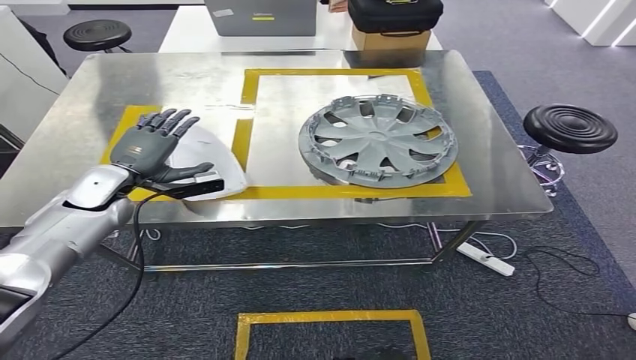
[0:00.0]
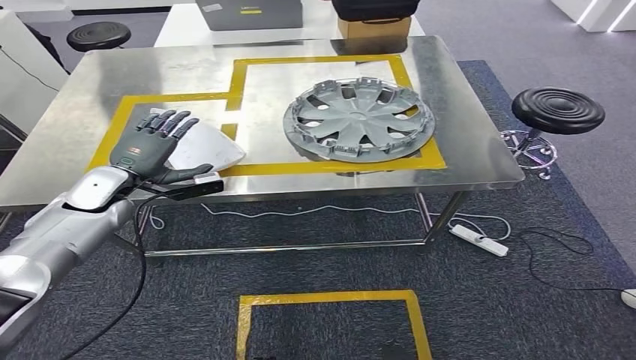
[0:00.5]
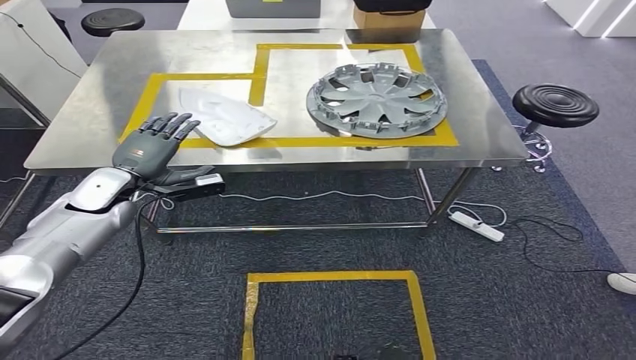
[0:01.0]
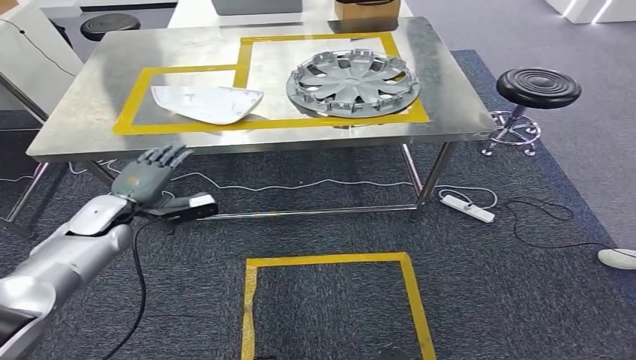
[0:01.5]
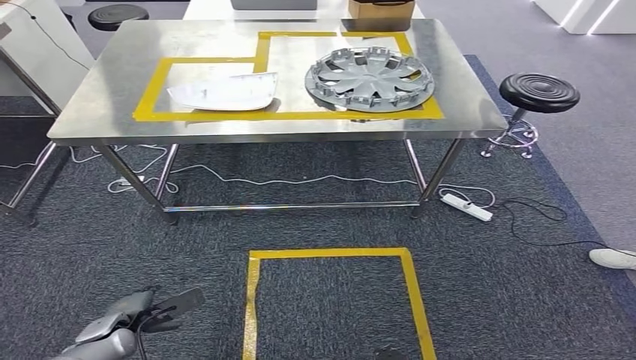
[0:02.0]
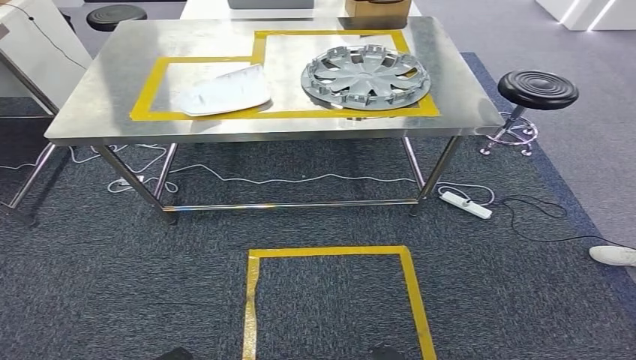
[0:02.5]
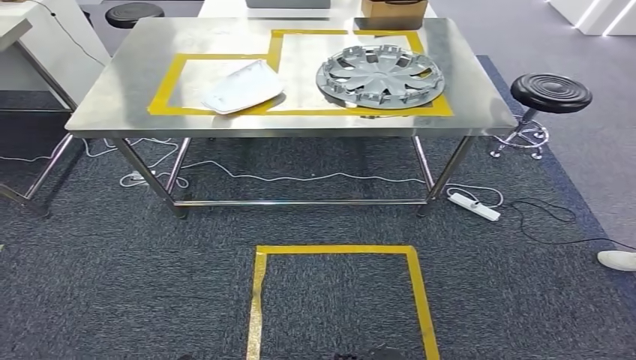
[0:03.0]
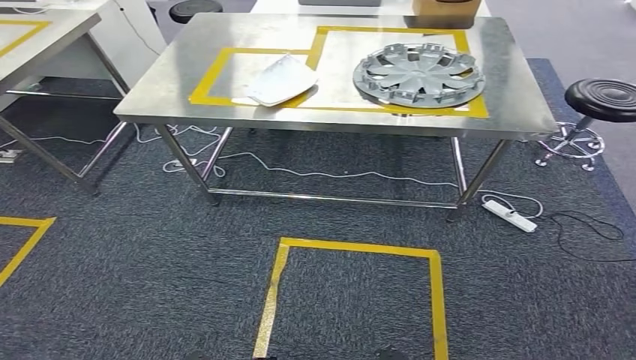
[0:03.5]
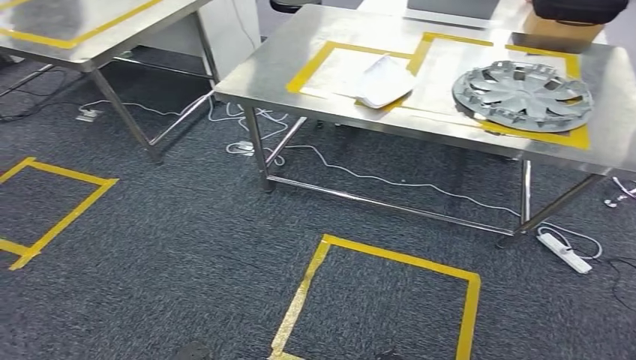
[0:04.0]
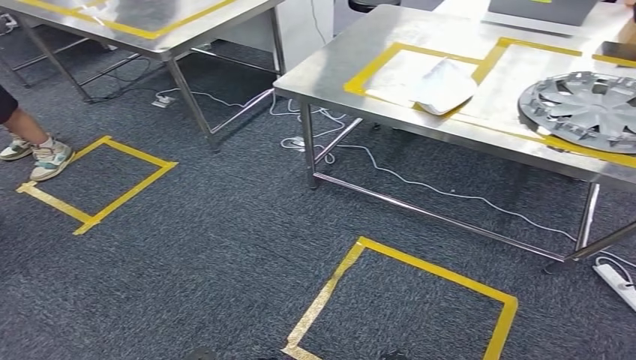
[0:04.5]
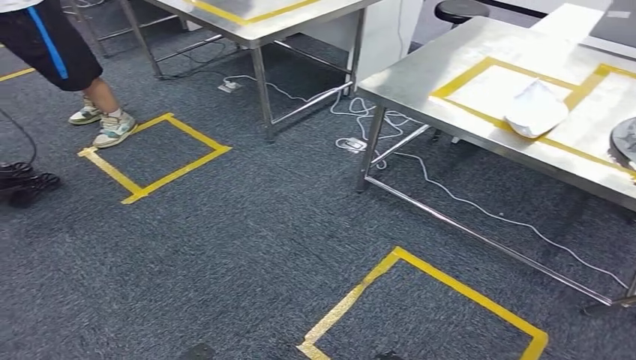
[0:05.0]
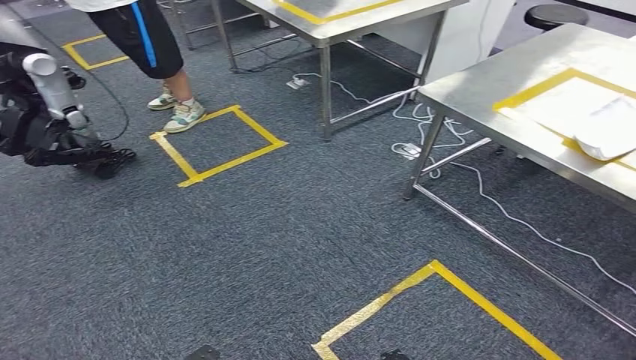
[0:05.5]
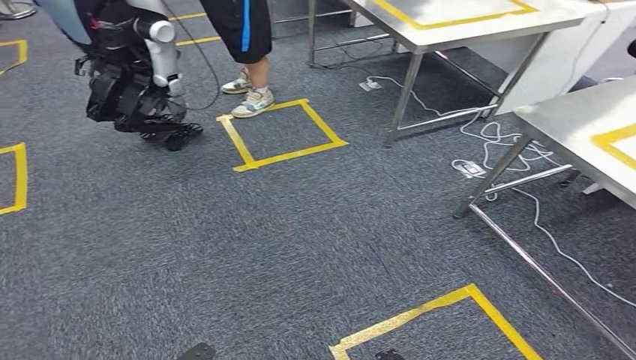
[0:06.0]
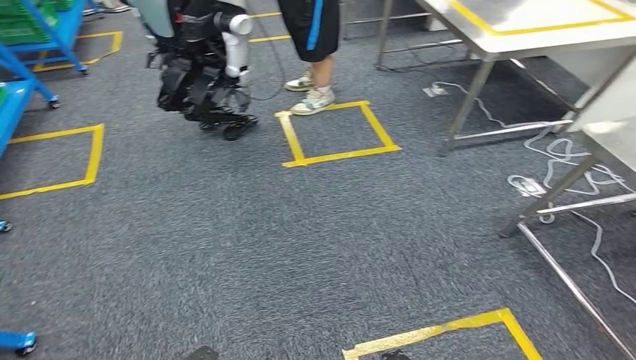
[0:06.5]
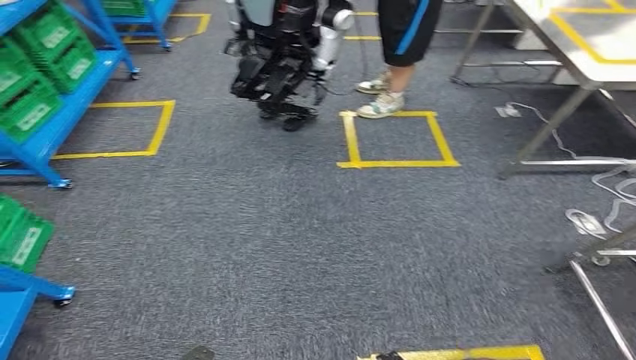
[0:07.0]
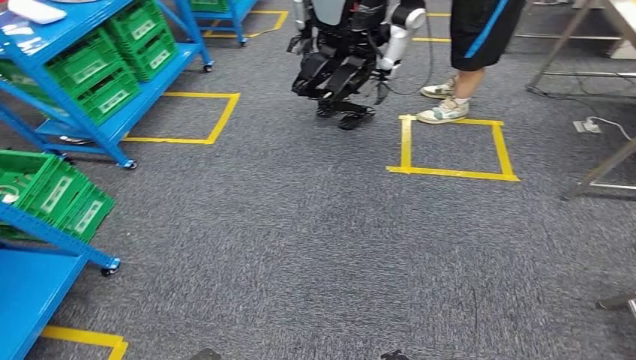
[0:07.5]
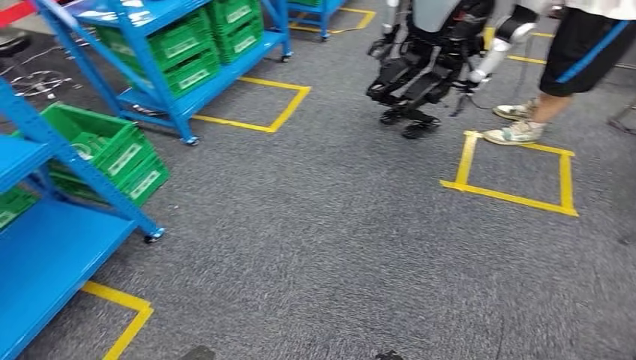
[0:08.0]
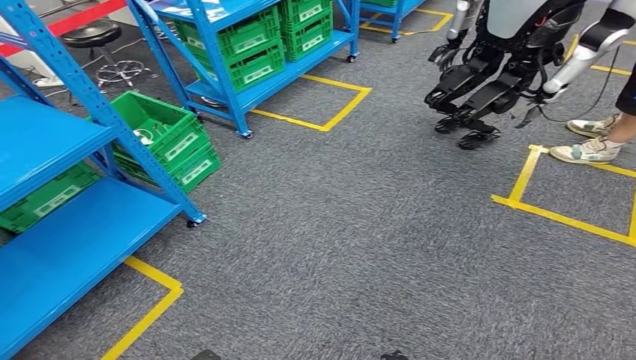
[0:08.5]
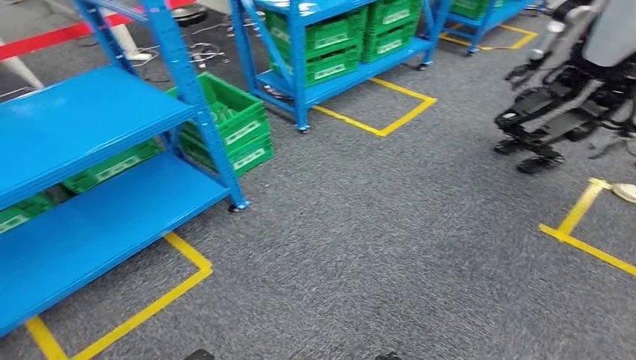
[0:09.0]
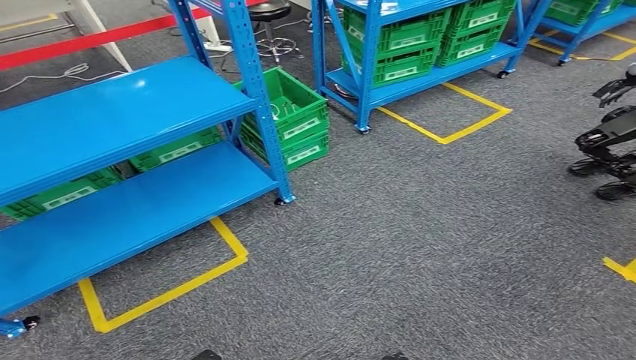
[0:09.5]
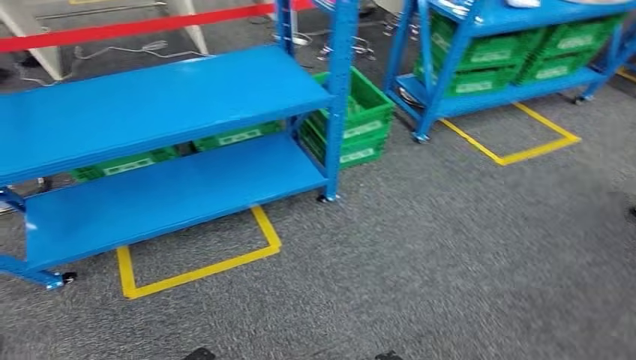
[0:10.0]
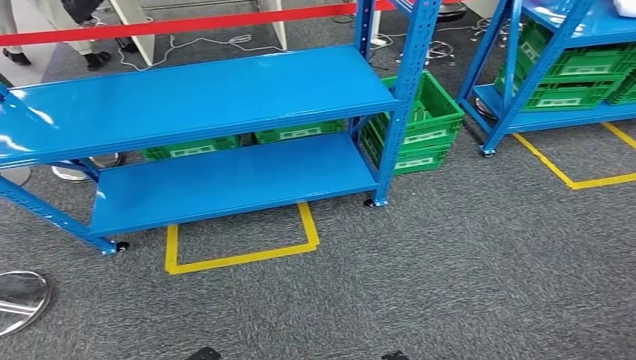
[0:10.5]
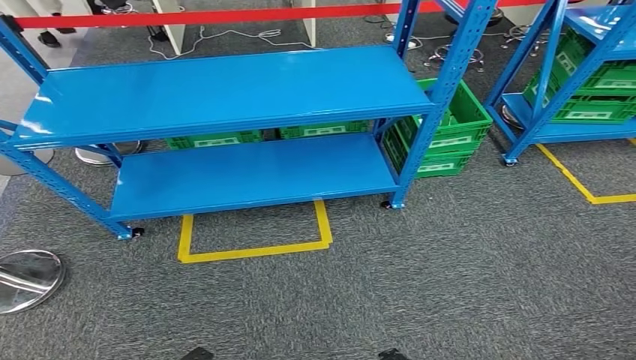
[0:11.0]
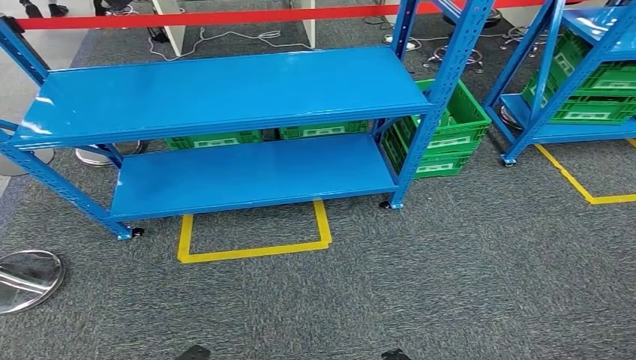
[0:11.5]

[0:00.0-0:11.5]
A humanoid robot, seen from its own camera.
Step, 0:01.5 to 0:11.5: Move to the initial position of the workbench.
